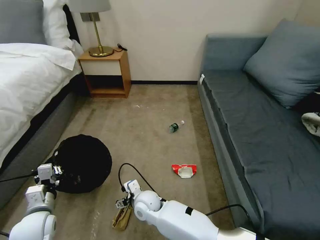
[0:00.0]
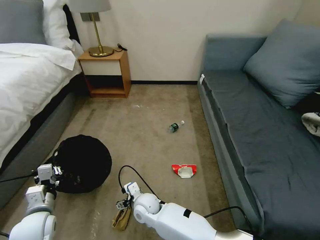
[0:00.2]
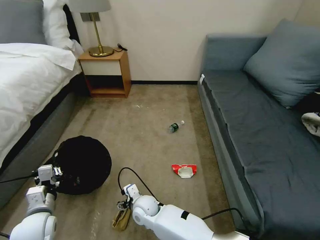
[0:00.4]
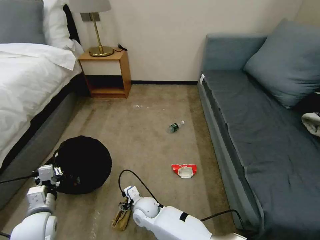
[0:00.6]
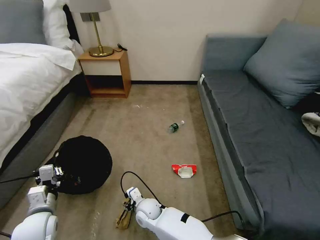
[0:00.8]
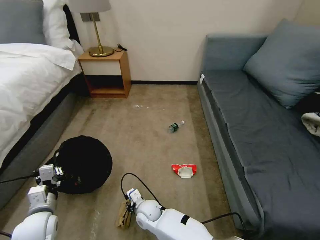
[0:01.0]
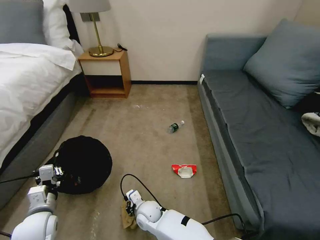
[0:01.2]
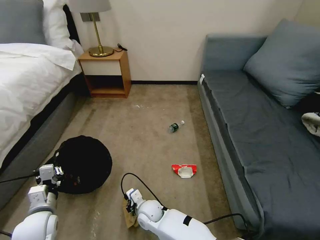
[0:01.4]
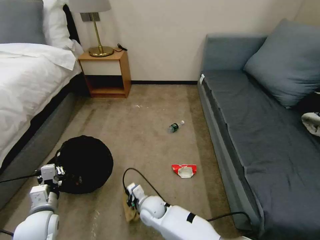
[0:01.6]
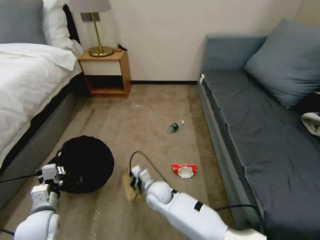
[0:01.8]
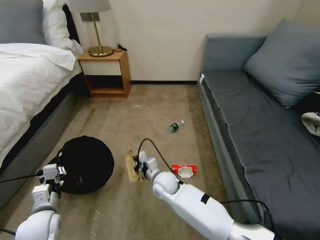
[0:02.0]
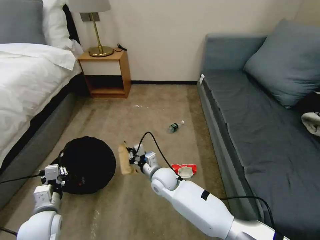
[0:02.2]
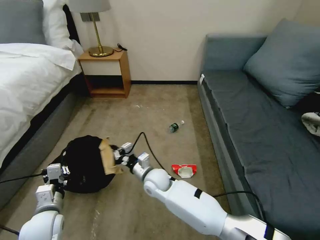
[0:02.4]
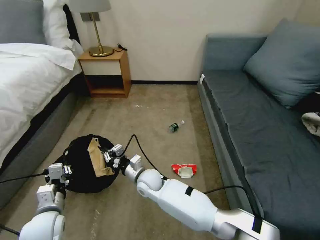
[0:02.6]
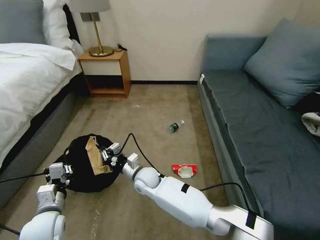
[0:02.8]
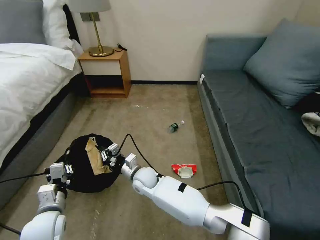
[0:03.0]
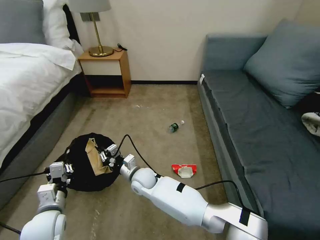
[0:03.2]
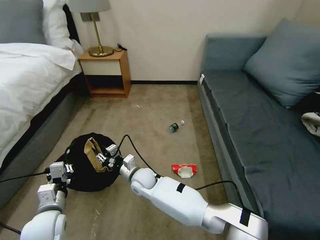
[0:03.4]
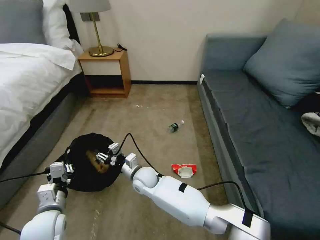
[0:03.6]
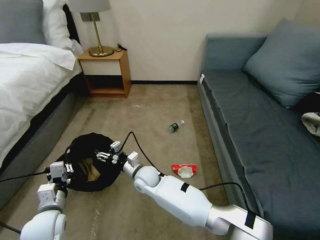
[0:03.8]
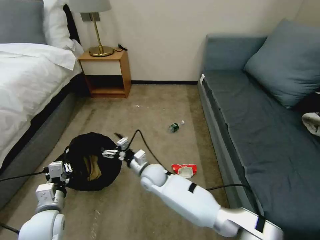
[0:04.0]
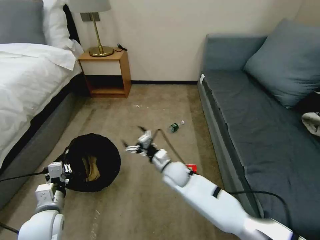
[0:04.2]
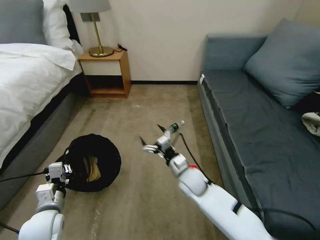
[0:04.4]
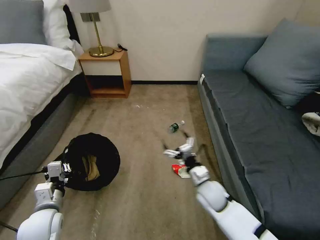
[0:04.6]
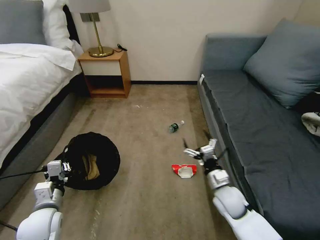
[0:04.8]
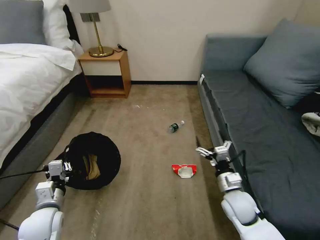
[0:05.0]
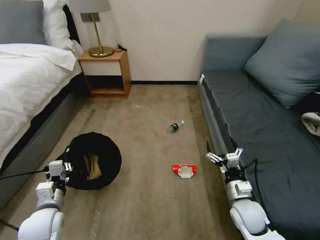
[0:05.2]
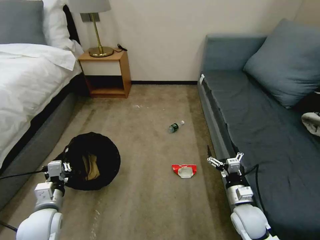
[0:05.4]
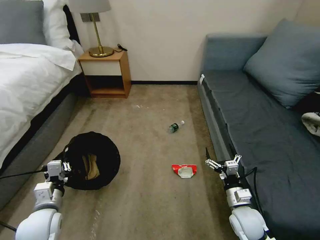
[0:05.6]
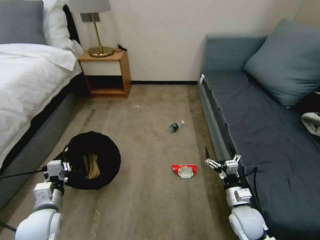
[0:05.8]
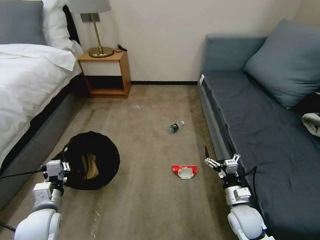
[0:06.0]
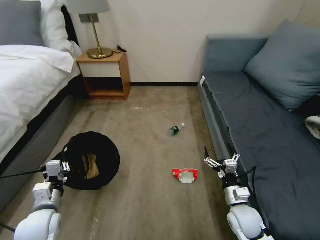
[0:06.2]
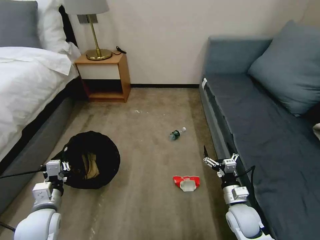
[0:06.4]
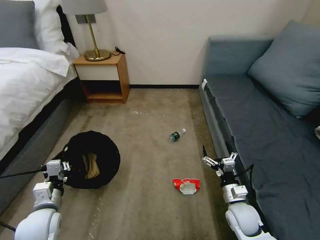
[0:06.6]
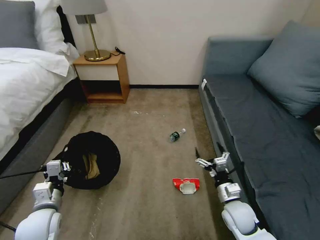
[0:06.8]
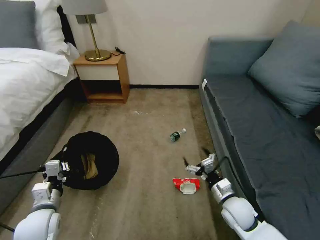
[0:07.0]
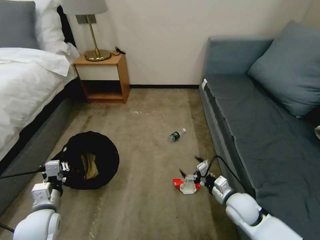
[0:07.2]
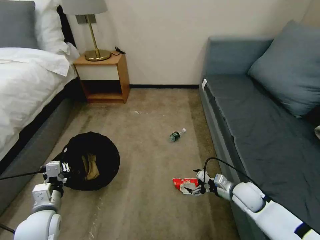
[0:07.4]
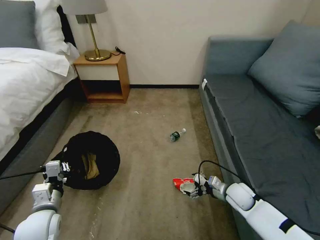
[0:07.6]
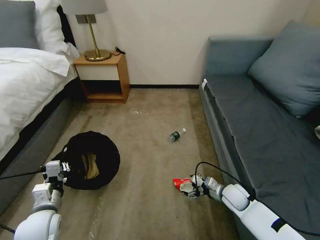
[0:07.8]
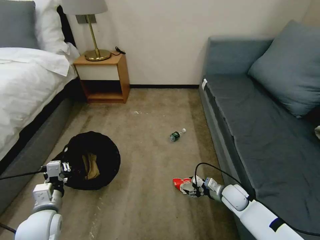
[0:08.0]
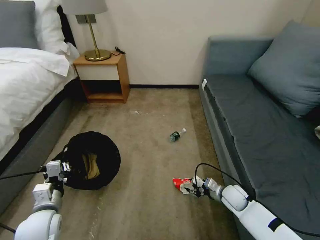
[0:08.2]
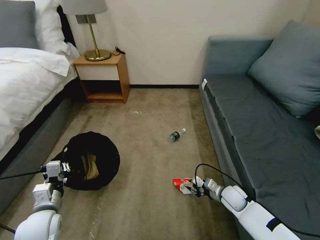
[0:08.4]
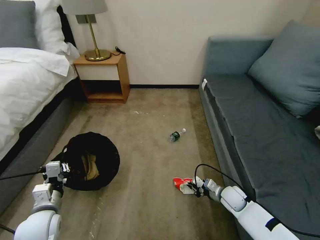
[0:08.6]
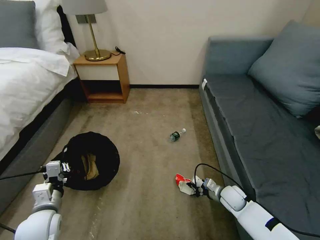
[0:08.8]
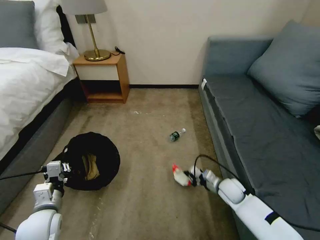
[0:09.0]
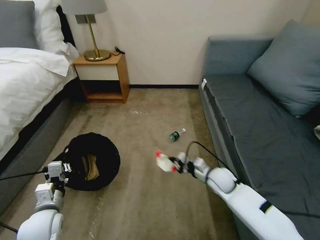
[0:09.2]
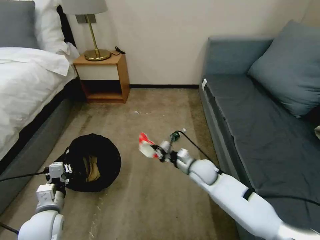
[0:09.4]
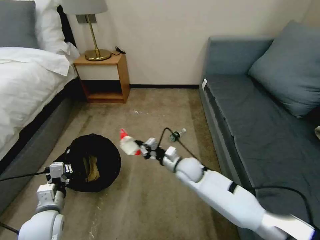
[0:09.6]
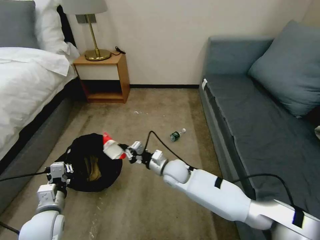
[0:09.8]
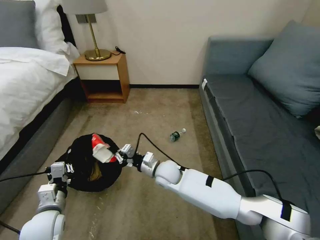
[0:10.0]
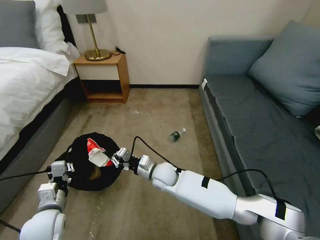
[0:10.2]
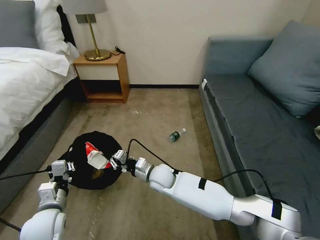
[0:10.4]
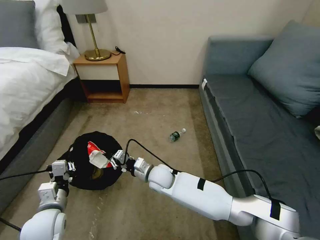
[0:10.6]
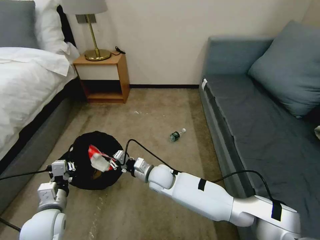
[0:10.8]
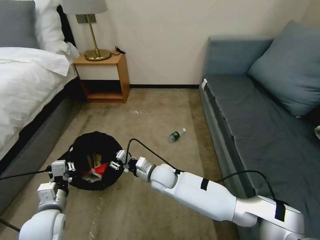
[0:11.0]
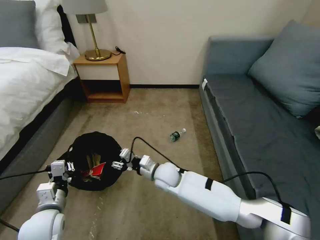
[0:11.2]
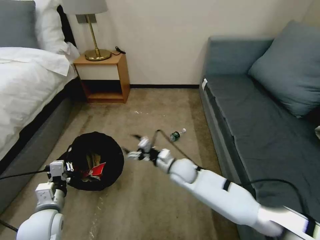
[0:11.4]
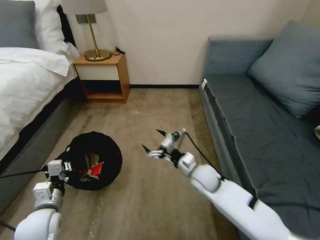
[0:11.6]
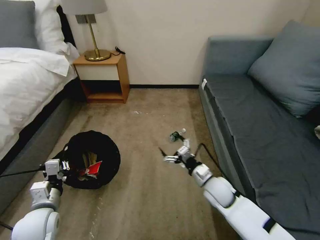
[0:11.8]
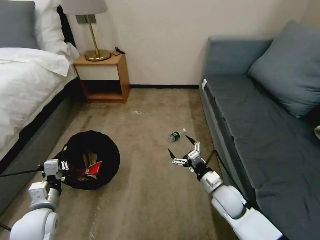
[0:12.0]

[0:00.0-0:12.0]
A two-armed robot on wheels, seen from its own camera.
Task of the whole recording: Pick up the trash bin, then pick up the garbage on the floor and place it into the trash bin.
0:00.0 to 0:01.6: The right gripper closes.
0:01.6 to 0:03.0: The right gripper goes about 10 cm forward and upward.
0:03.0 to 0:04.4: The right gripper shifts about 20 cm to the right, and opens its fingers.
0:04.4 to 0:06.0: The right gripper moves to the right and backward, about 20 cm.
0:06.0 to 0:07.6: The right gripper heads forward, covering approximately 10 cm.
0:07.6 to 0:09.0: The right gripper closes its fingers.
0:09.0 to 0:10.4: The right gripper shifts about 30 cm to the left.
0:10.4 to 0:12.0: The right gripper moves to the right, approximately 20 cm, and opens.

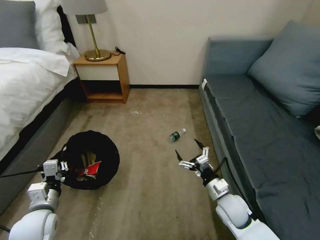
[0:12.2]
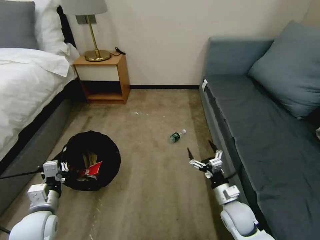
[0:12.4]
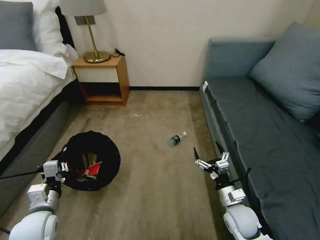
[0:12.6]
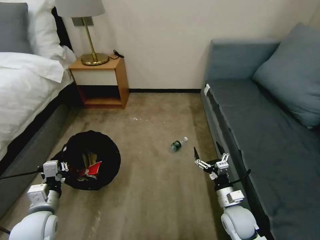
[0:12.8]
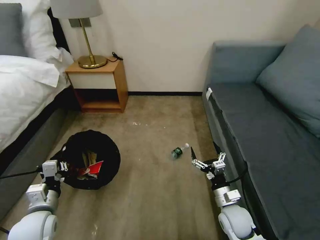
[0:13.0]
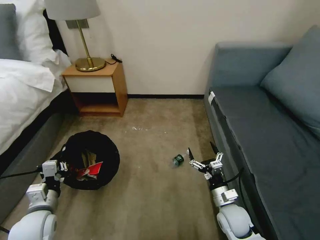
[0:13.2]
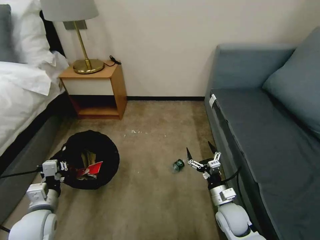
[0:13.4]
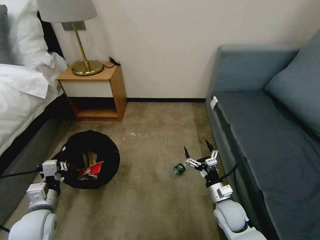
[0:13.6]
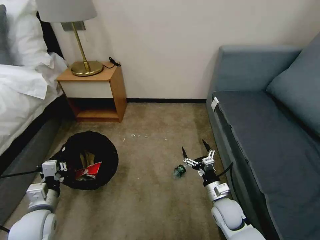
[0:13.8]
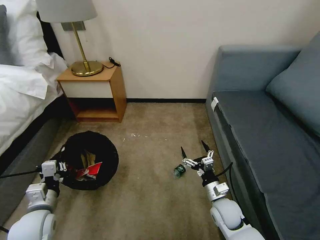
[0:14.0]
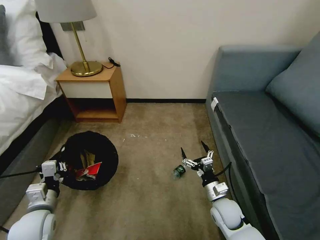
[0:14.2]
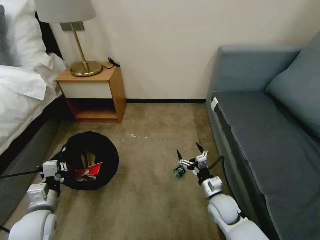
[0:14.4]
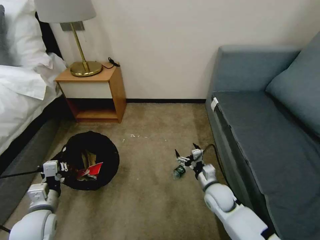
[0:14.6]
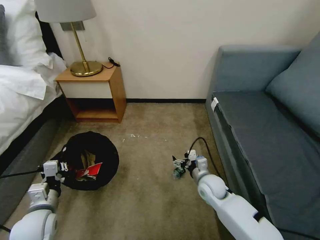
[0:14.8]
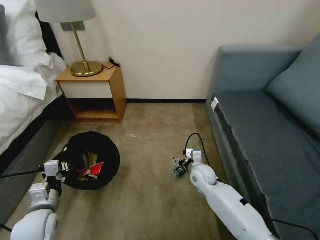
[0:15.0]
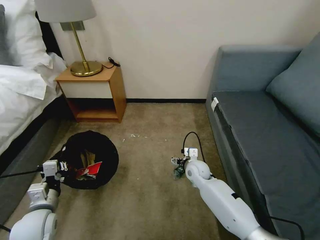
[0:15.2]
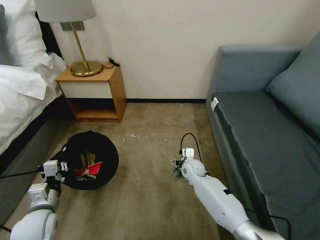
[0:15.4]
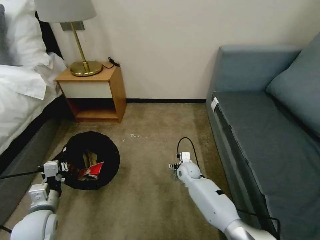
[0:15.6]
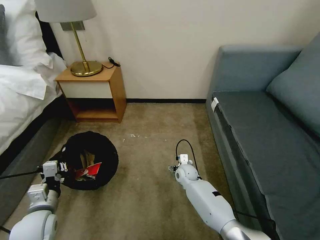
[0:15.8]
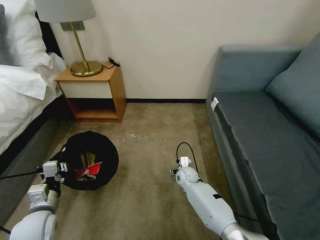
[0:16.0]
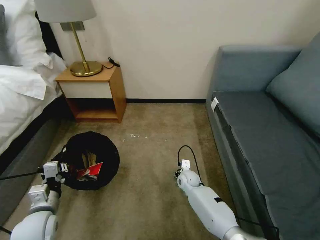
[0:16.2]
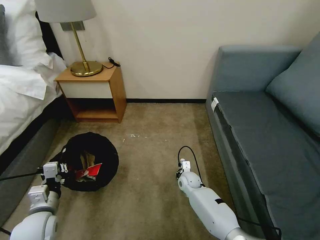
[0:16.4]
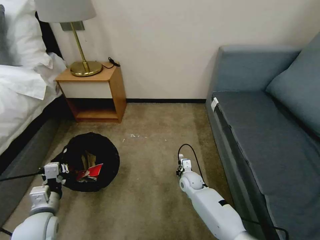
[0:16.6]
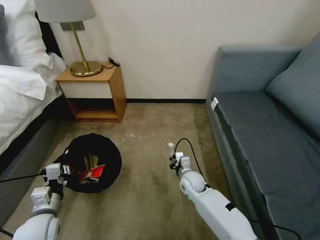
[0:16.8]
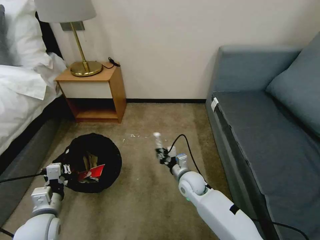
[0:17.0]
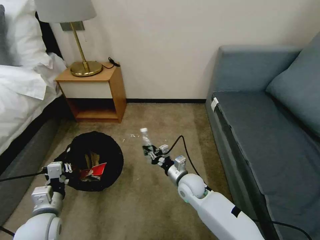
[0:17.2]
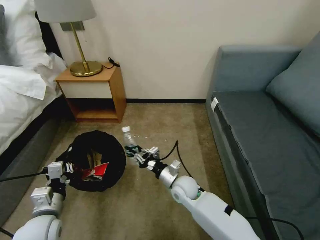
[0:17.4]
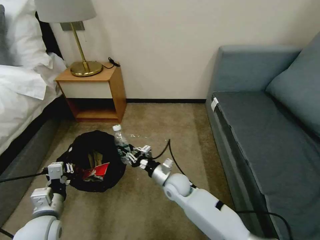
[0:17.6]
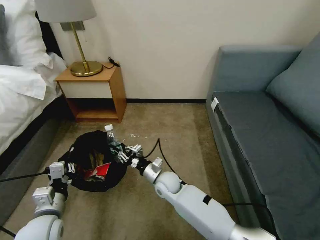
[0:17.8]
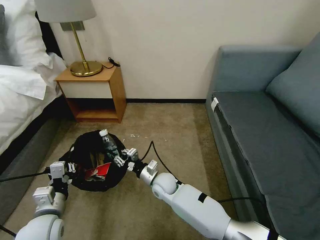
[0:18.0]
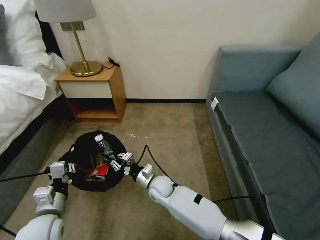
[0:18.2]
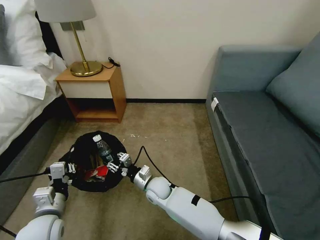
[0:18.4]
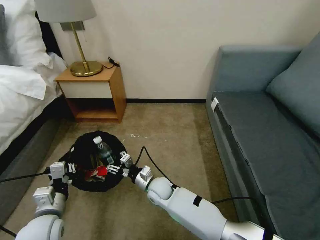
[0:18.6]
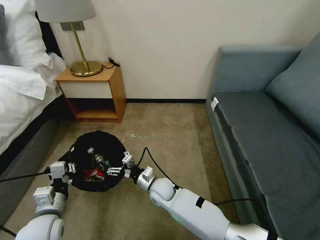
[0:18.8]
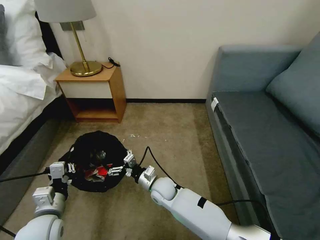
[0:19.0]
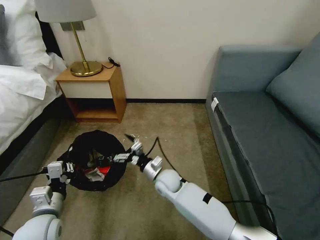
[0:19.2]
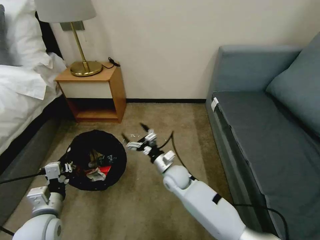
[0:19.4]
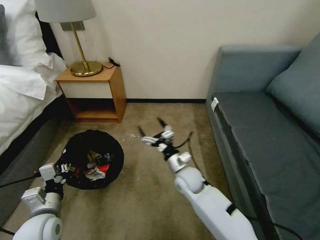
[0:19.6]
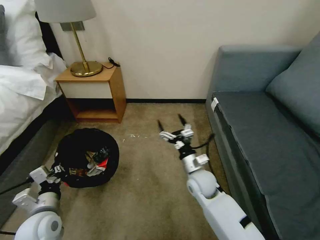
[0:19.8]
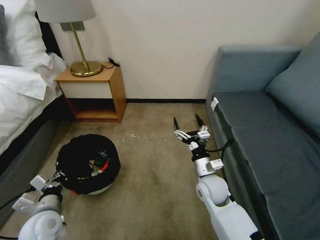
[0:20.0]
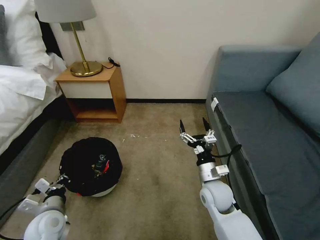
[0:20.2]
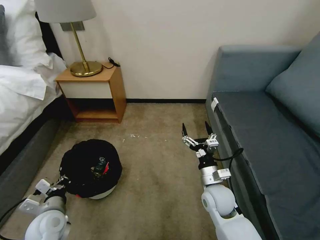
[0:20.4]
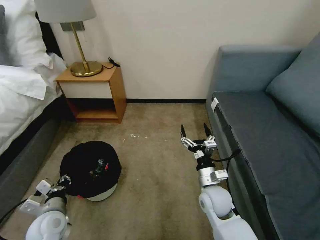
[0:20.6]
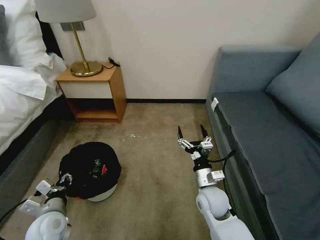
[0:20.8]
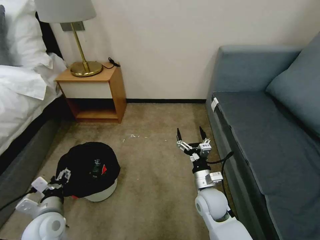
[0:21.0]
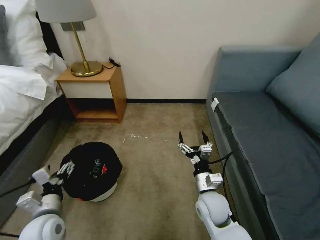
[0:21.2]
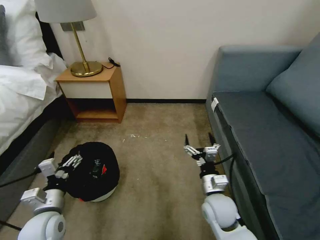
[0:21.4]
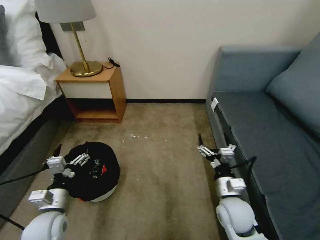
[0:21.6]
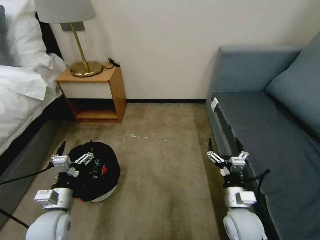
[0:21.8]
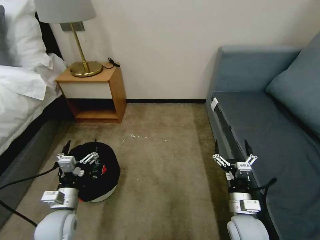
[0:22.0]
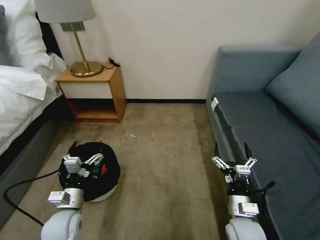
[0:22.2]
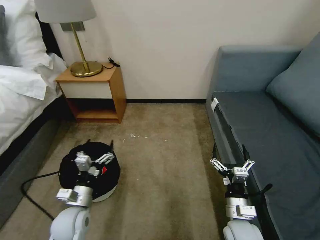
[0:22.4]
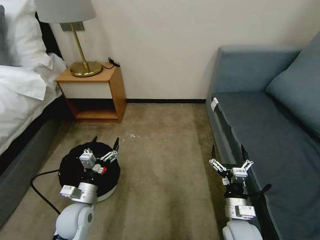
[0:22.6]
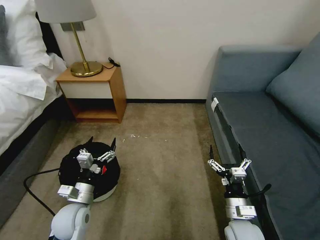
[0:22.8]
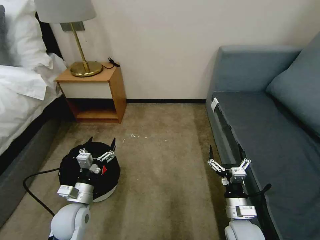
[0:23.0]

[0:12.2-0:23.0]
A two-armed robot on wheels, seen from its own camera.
Task of the whole recording: Pick up the trash bin, then pick up the garbage on the floor and place it into the trash bin.
0:13.8 to 0:15.2: The right gripper moves forward and to the left, about 15 cm.
0:15.2 to 0:16.8: The right gripper travels downward and back again, approximately 10 cm each way, and closes.
0:16.8 to 0:18.4: The right gripper heads to the left, covering some 15 cm.
0:18.4 to 0:20.0: The right gripper heads to the right and upward, covering some 20 cm, and opens up.
0:20.0 to 0:21.4: The left gripper opens. The right gripper travels backward by some 5 cm.
0:21.4 to 0:23.0: The right gripper is displaced backward and to the right by about 10 cm; the left gripper heads to the right, covering approximately 5 cm.
